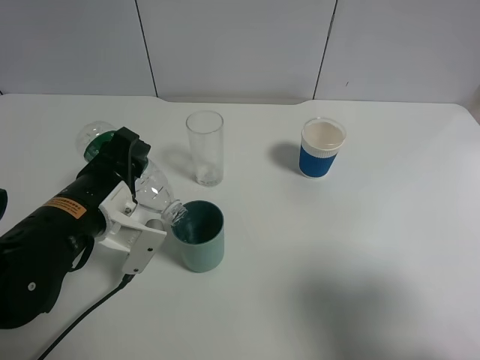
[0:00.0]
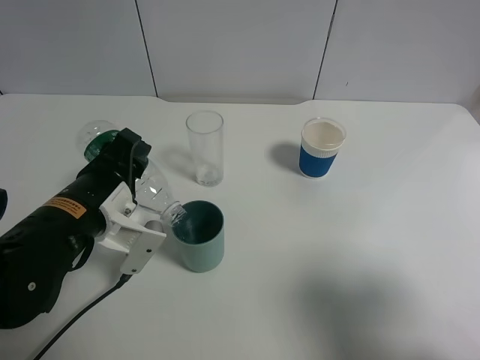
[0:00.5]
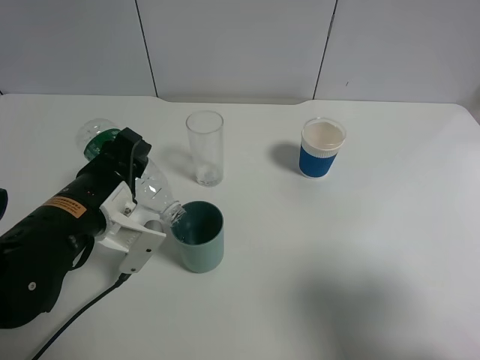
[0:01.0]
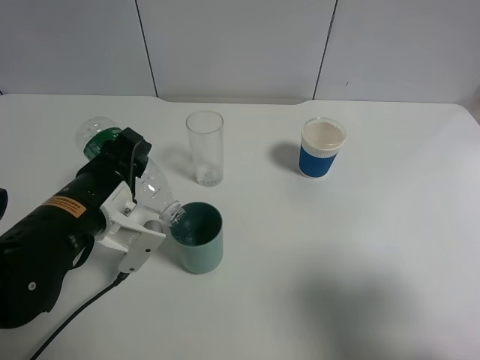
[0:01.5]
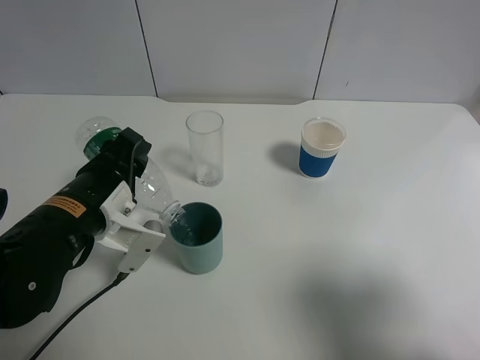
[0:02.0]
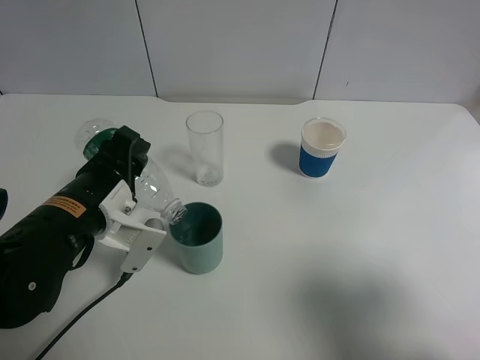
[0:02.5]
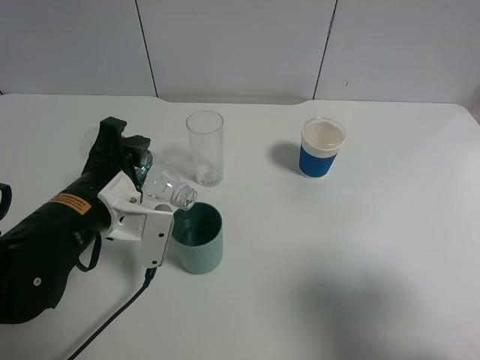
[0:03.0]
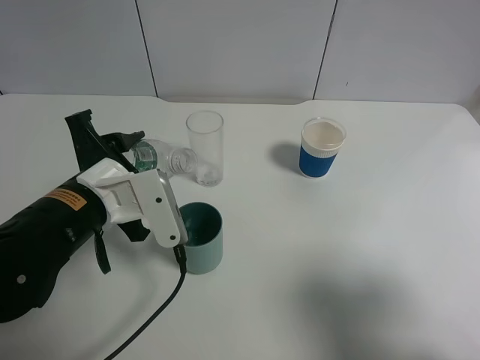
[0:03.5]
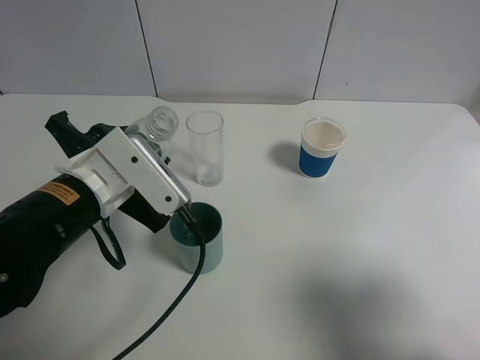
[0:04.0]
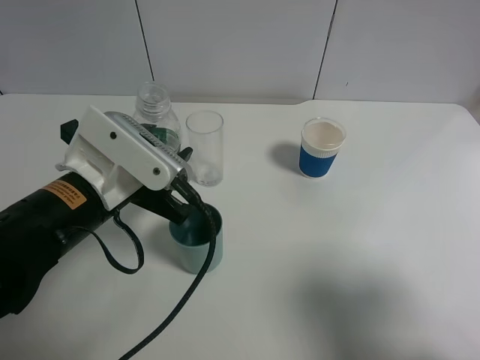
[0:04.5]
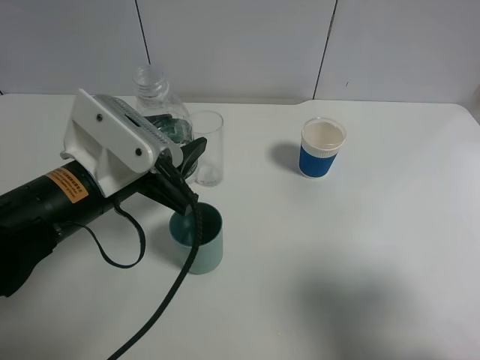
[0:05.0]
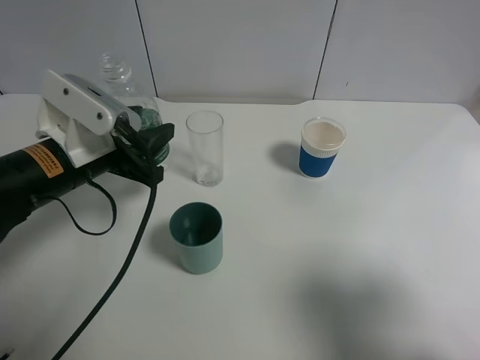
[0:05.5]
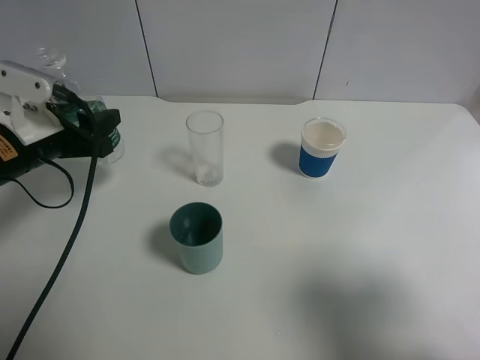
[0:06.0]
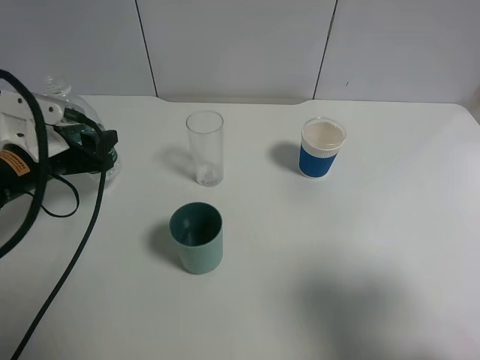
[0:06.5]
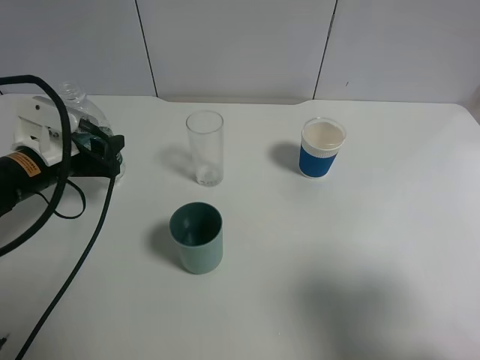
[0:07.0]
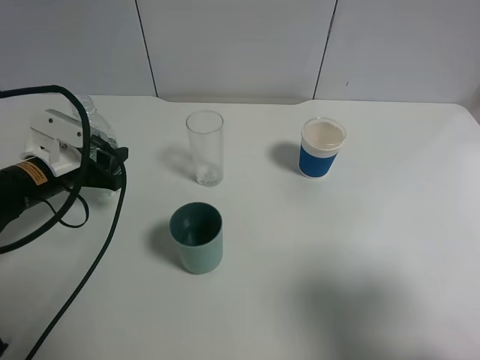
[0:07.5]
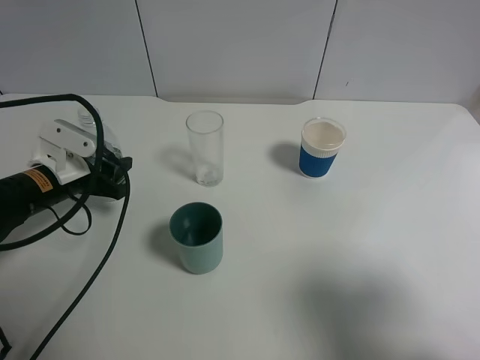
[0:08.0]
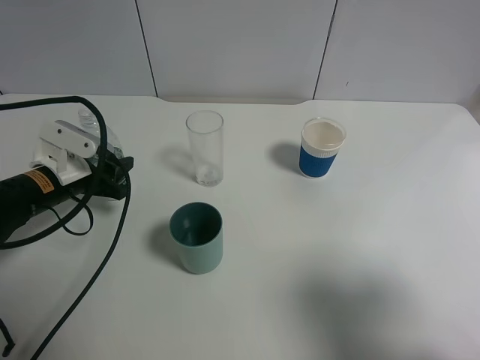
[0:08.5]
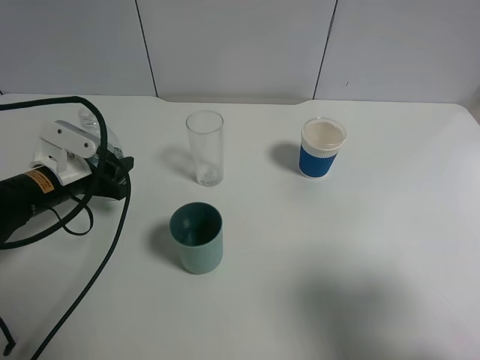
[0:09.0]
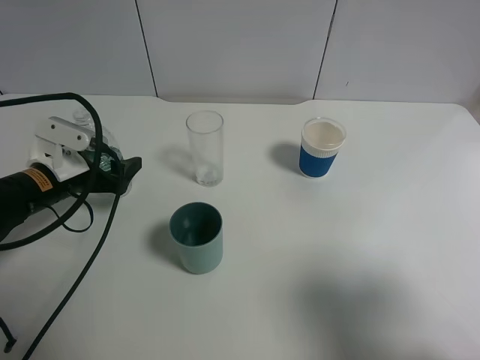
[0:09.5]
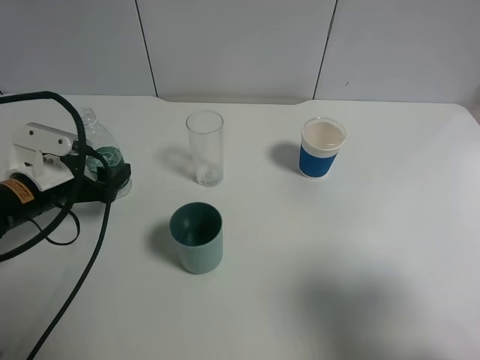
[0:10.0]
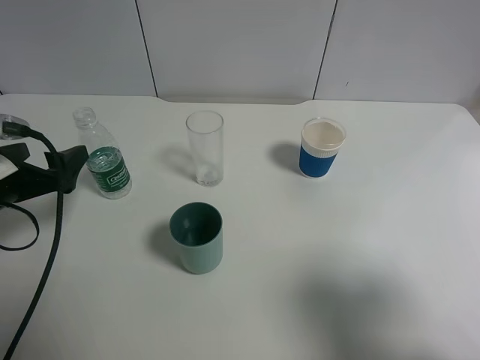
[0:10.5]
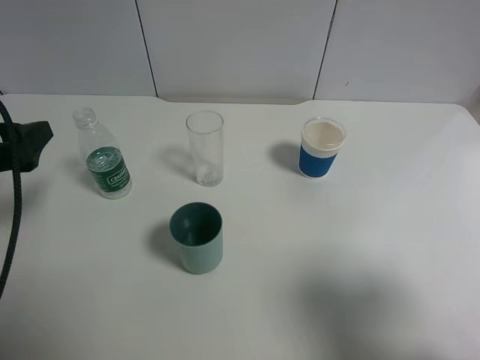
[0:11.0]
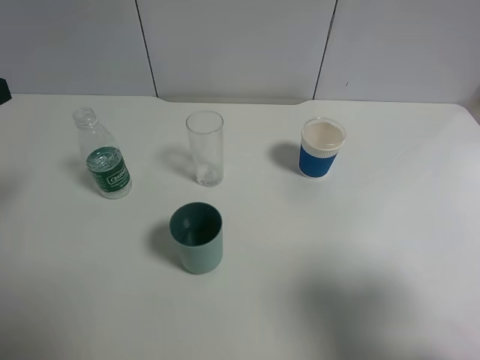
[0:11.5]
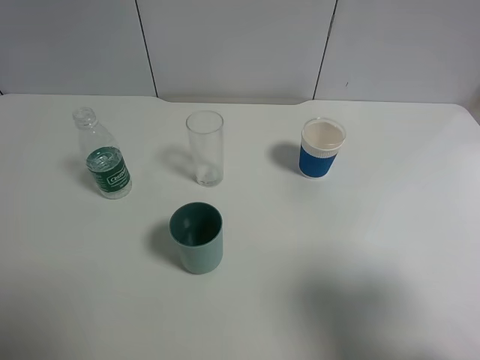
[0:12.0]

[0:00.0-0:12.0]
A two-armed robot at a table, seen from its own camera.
Task of the whole recording: use a gripper to hold the bottle of the drink and pour it into a random cup.
Step, 0:00.0 to 0:02.5: Pour the mineral water into the cyan cup with the left gripper.
Step, 0:03.0 to 0:09.0: Pour the mineral water into the glass with the left gripper.
0:00.0 to 0:02.0: Both grippers stay about where they are.
0:04.0 to 0:06.0: The left gripper travels to the left and forward by about 10 cm.
0:06.0 to 0:08.0: The left gripper shifts approximately 10 cm downward.
0:08.0 to 0:10.0: The left gripper opens its fingers.
0:10.0 to 0:12.0: The left gripper is displaced upward and backward by about 25 cm.

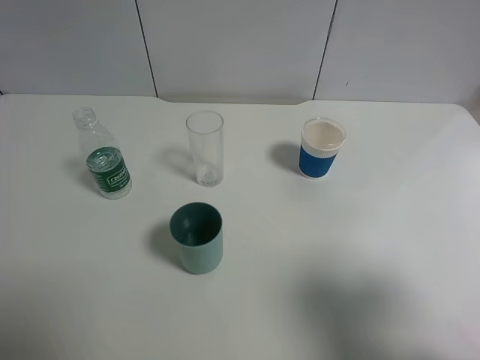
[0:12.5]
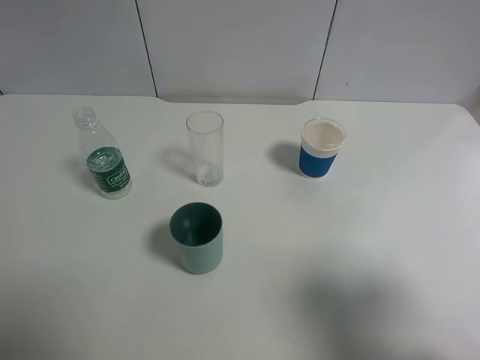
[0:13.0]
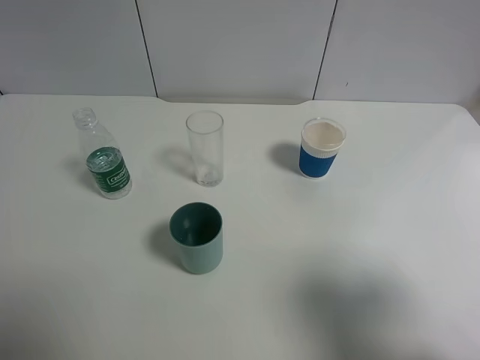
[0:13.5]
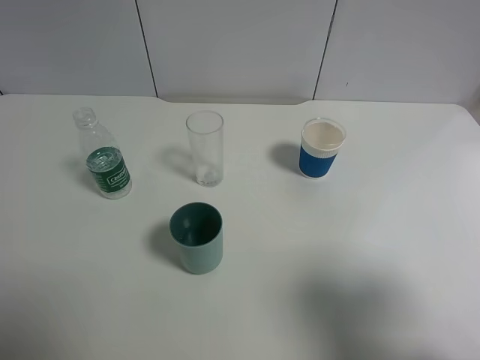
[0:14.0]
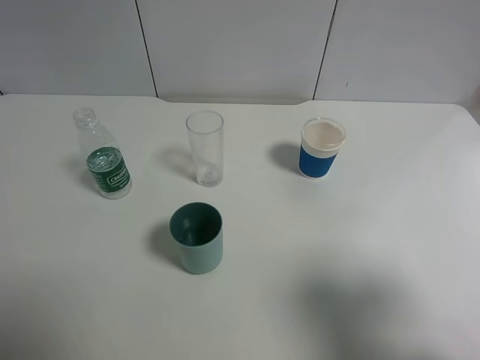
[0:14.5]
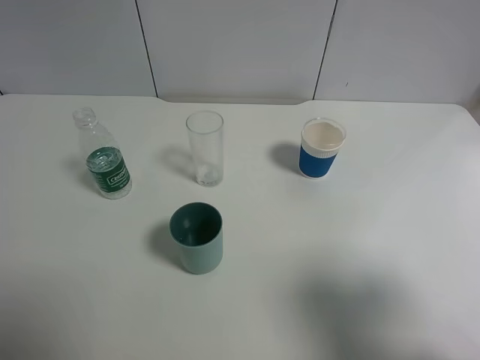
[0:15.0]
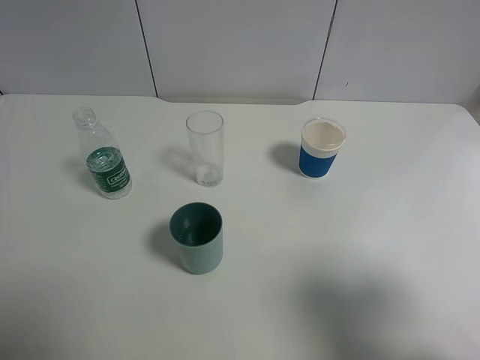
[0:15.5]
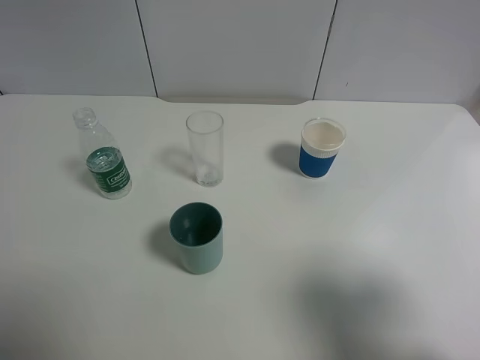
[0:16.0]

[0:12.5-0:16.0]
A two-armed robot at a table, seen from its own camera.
Task of the whole recording: use a gripper to hold the bottle of the drink and pour it into a random cup.
0:14.5 to 0:16.0: Neither gripper changes place.

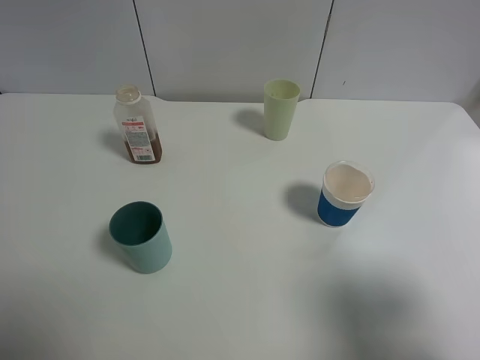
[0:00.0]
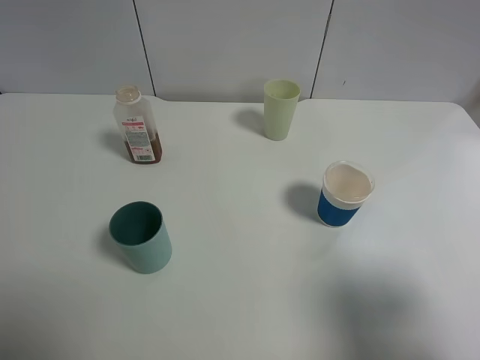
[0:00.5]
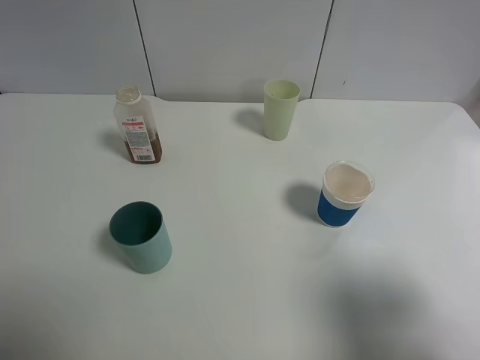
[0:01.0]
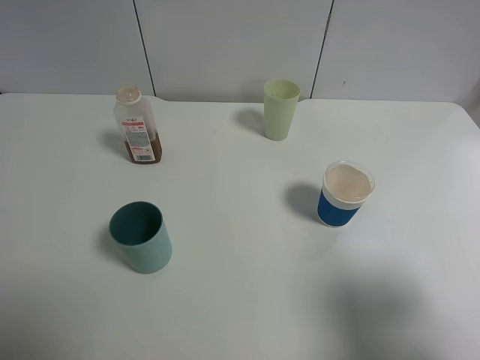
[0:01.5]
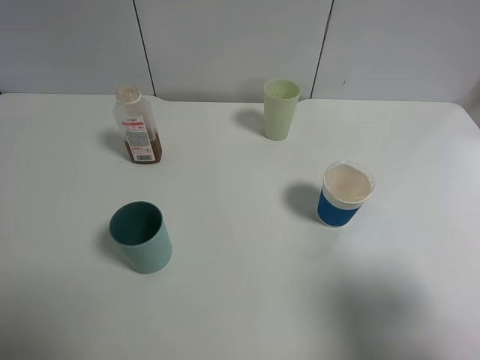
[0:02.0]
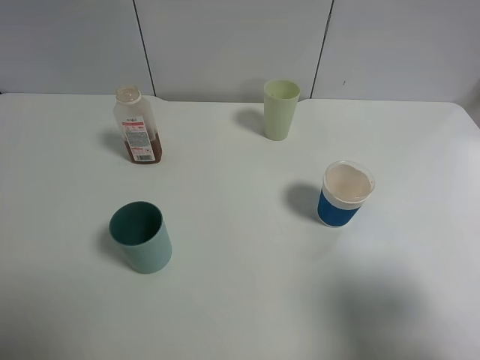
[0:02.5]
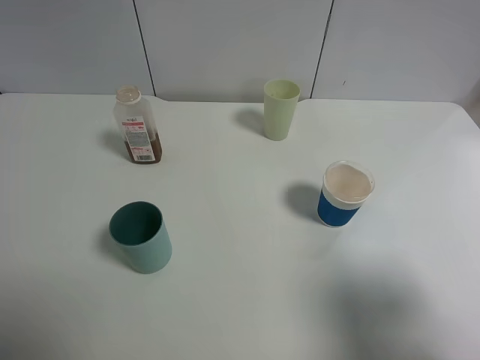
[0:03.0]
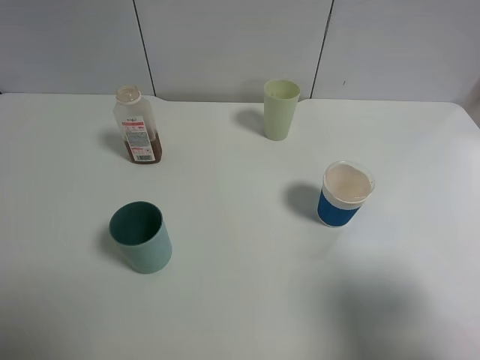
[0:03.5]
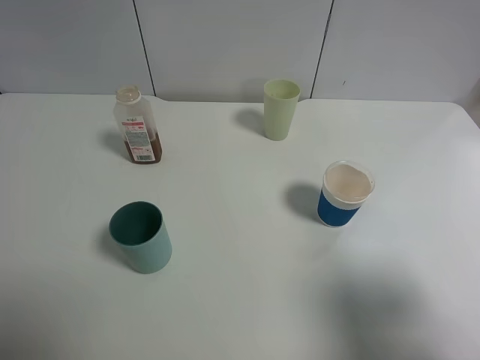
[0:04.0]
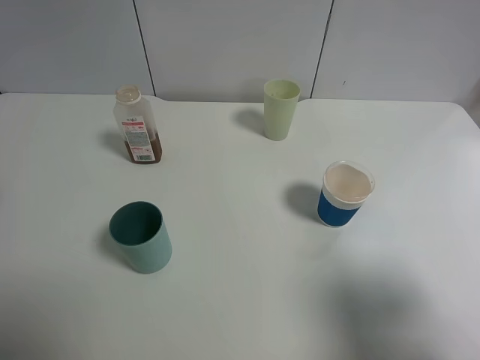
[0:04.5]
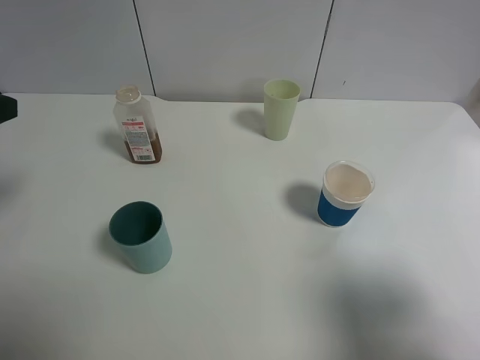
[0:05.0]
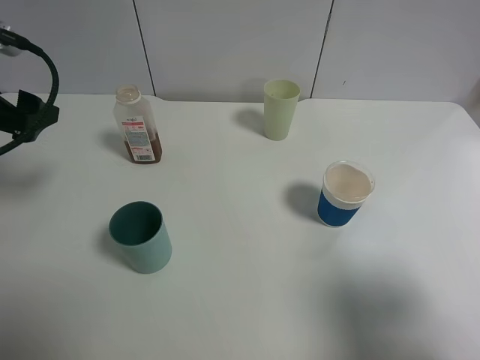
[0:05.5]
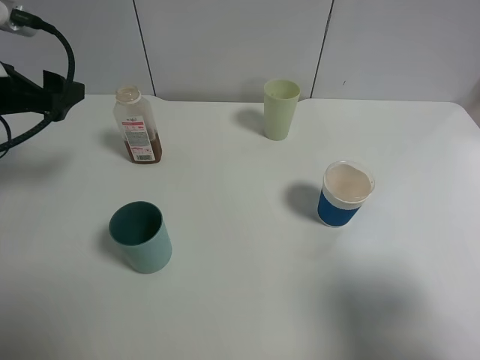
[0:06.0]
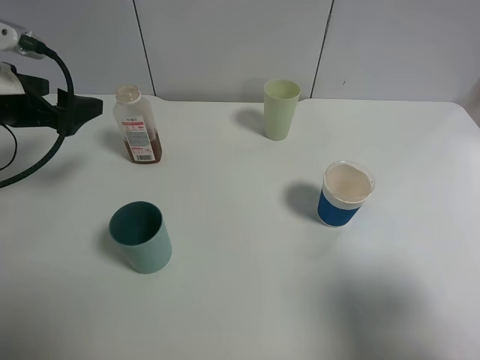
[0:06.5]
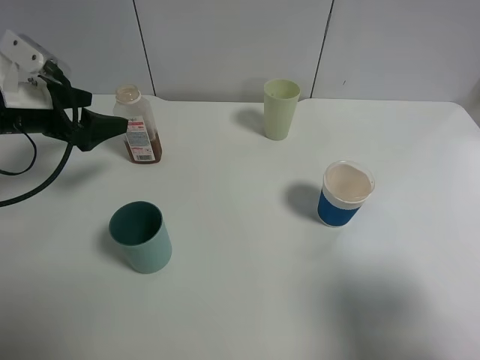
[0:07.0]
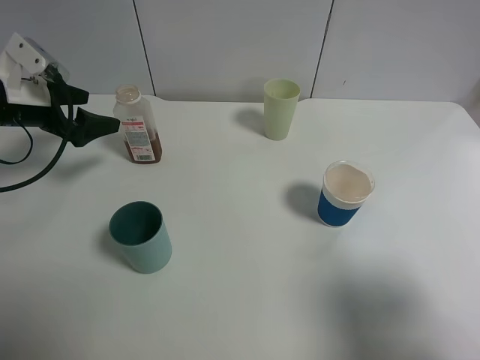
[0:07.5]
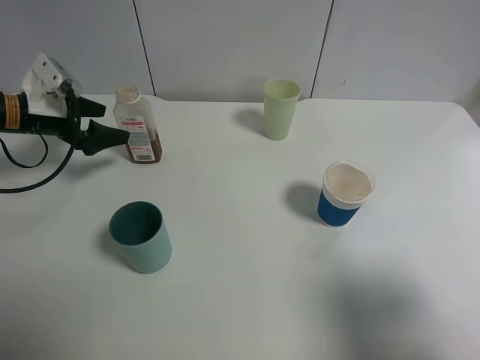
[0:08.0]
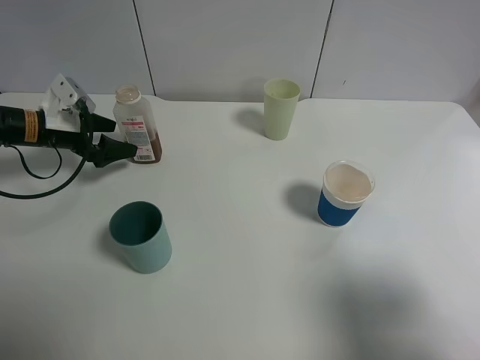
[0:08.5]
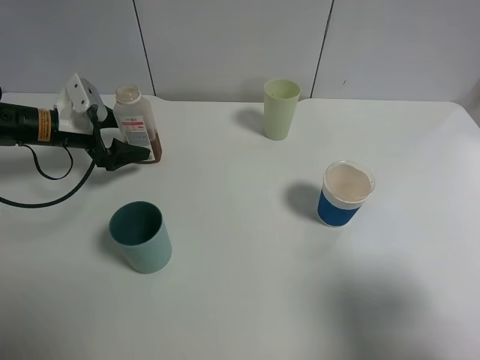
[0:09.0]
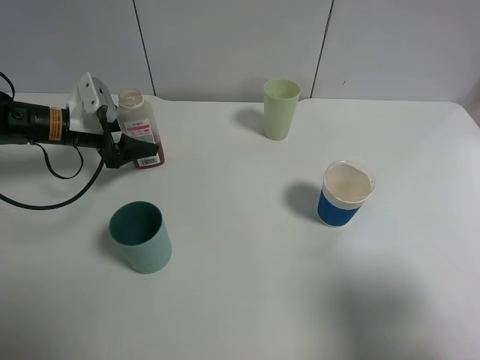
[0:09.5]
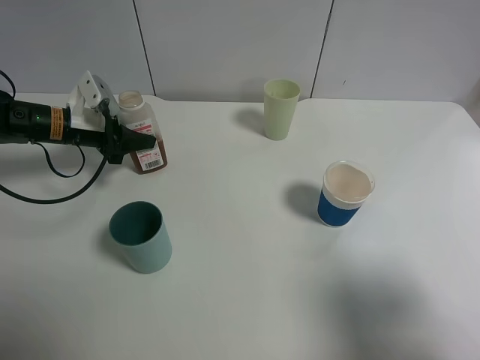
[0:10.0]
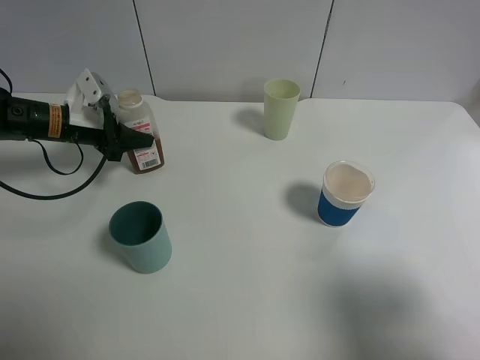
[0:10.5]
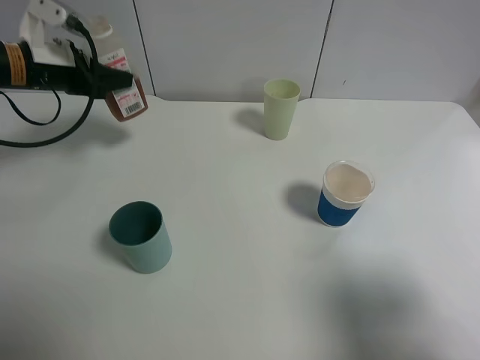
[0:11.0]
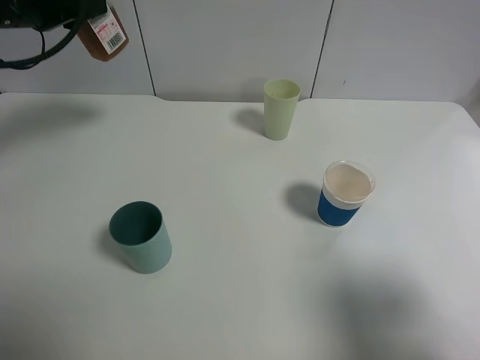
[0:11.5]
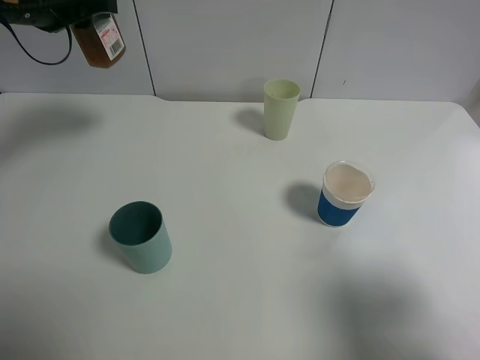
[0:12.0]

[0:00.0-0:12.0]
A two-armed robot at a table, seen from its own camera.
Task of the whole recording: use a gripper to hold the bottle of the drink and pour it into a random cup.
Step, 0:00.0 to 0:09.5: Grasp the cranberry juice bottle with the left gripper.
0:00.0 to 0:02.0: The two grippers keep their place.
0:04.0 to 0:06.0: The left gripper goes approximately 20 cm forward.
0:06.0 to 0:08.0: The left gripper shifts roughly 15 cm downward and forward.
0:08.0 to 0:10.0: The left gripper moves about 5 cm, and closes its fingers.
0:10.0 to 0:12.0: The left gripper moves upward, some 20 cm.
